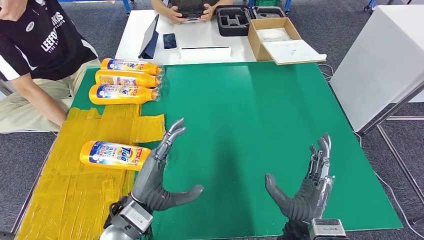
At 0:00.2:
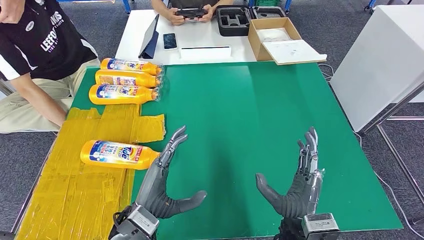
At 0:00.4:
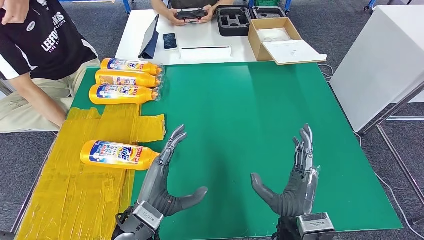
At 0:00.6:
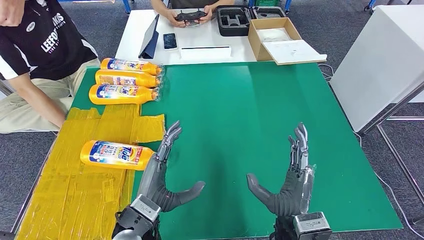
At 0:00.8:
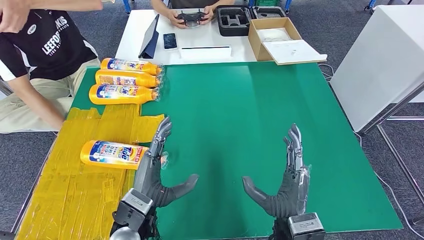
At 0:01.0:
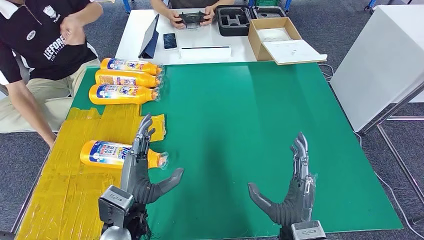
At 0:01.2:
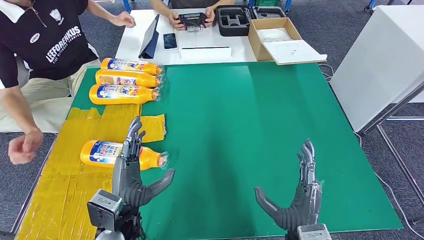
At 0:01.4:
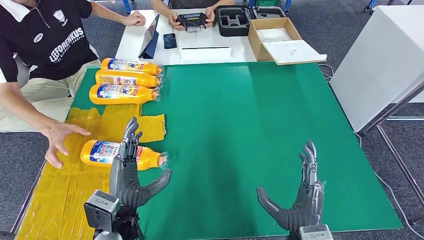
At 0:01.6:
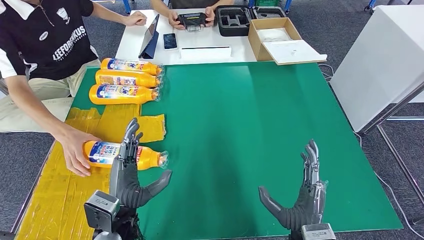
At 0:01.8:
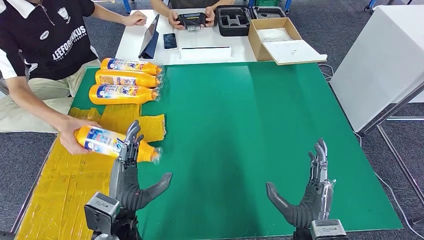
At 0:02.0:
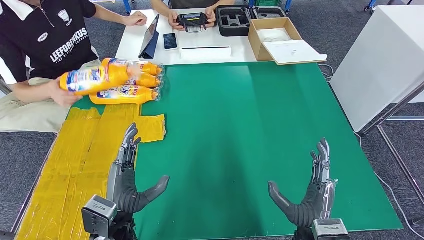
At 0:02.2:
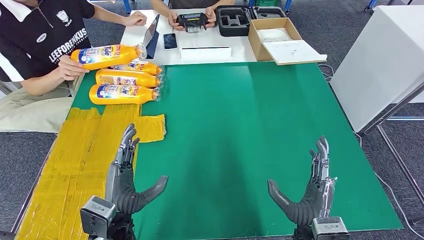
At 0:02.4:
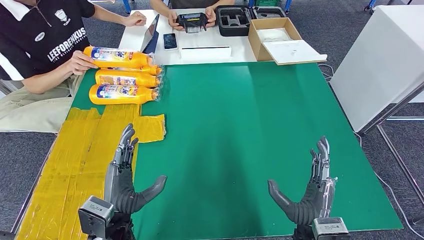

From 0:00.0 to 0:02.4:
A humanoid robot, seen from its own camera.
Step, from 0:00.0 to 0:02.4: Flip the bottle to face forward.
From 0:01.2 to 0:02.4: The hands move only a little.
